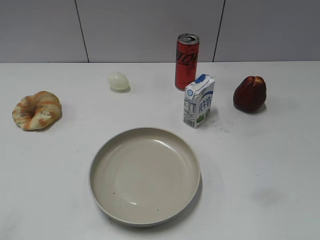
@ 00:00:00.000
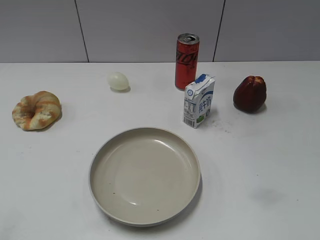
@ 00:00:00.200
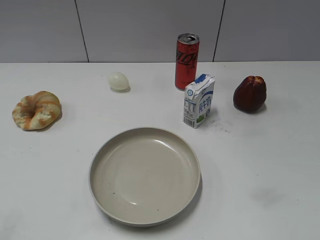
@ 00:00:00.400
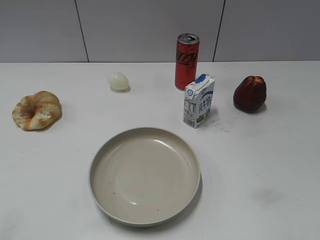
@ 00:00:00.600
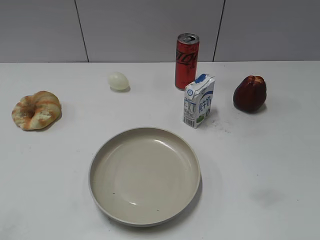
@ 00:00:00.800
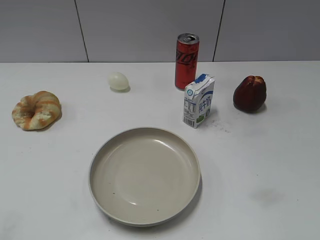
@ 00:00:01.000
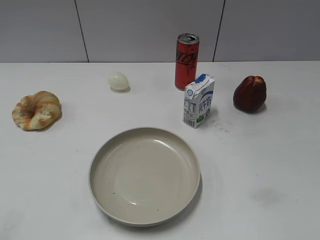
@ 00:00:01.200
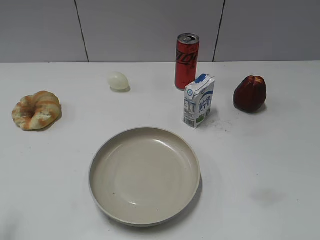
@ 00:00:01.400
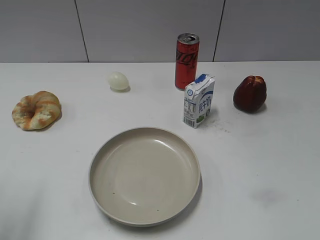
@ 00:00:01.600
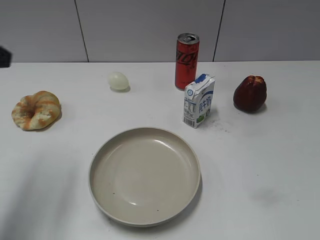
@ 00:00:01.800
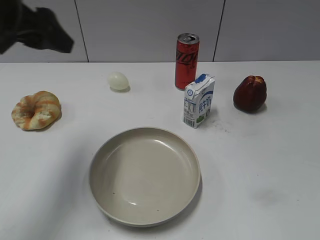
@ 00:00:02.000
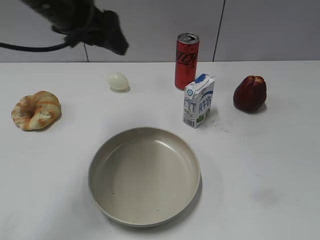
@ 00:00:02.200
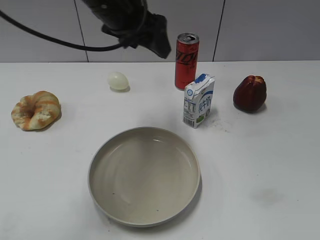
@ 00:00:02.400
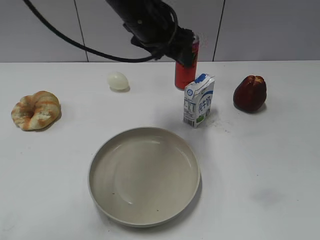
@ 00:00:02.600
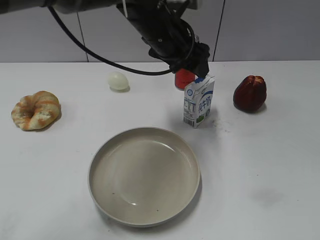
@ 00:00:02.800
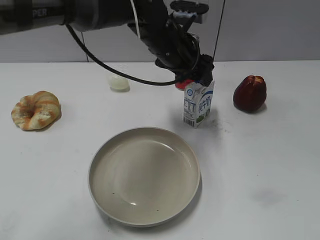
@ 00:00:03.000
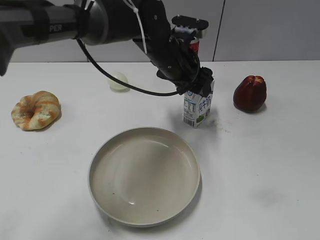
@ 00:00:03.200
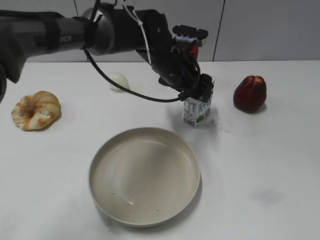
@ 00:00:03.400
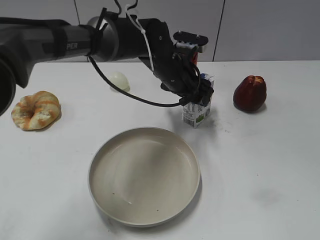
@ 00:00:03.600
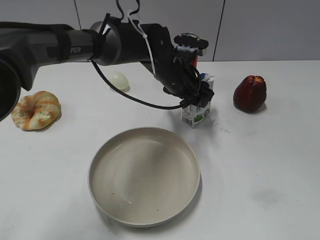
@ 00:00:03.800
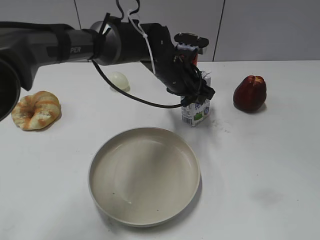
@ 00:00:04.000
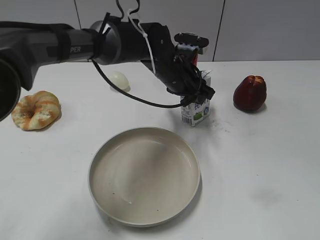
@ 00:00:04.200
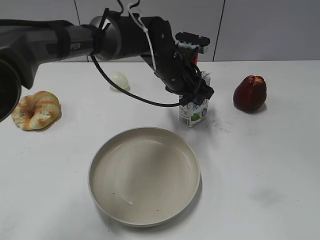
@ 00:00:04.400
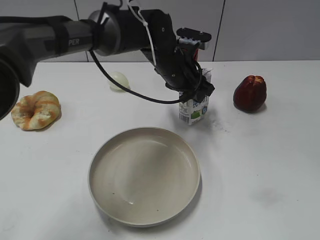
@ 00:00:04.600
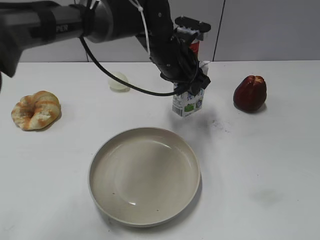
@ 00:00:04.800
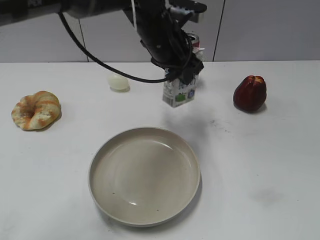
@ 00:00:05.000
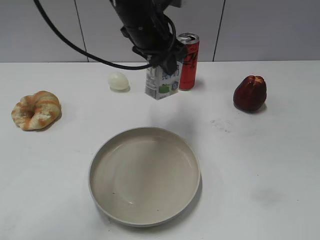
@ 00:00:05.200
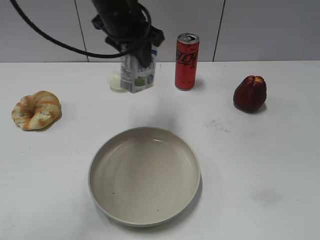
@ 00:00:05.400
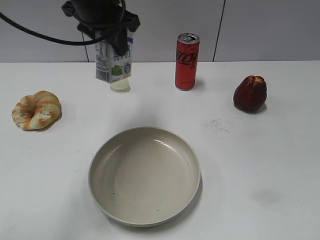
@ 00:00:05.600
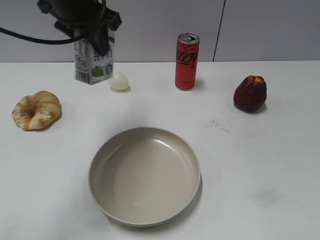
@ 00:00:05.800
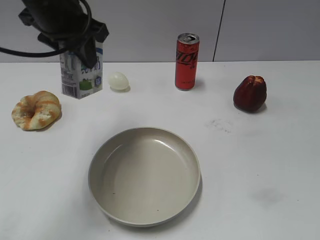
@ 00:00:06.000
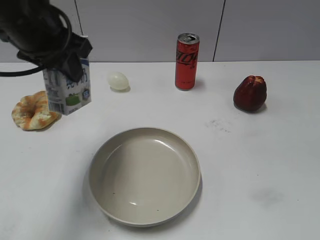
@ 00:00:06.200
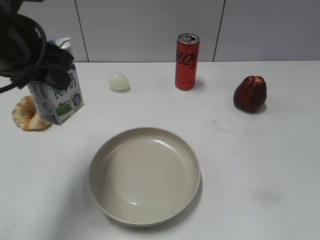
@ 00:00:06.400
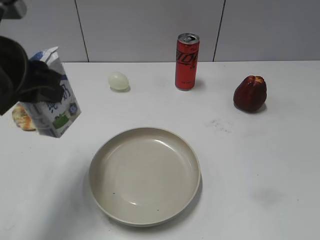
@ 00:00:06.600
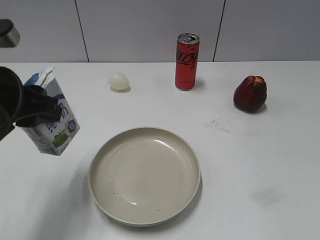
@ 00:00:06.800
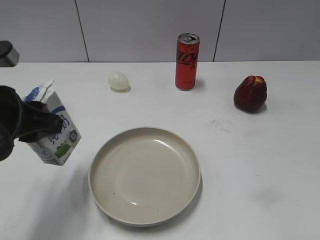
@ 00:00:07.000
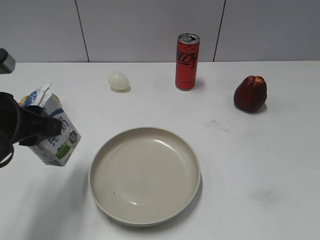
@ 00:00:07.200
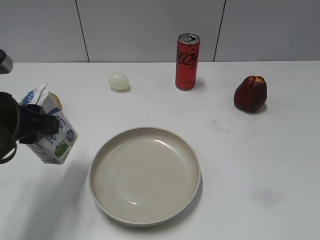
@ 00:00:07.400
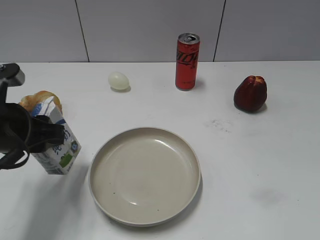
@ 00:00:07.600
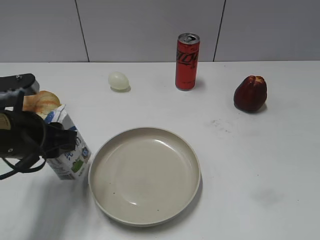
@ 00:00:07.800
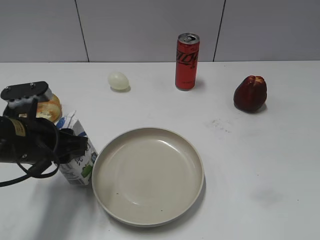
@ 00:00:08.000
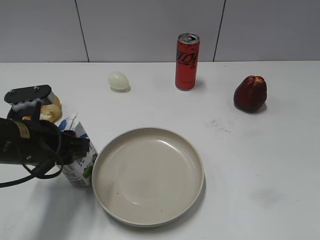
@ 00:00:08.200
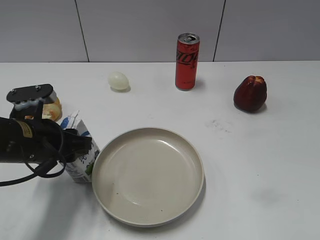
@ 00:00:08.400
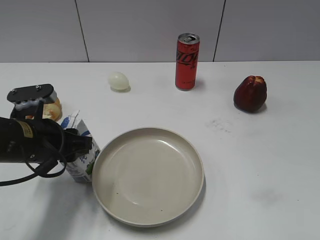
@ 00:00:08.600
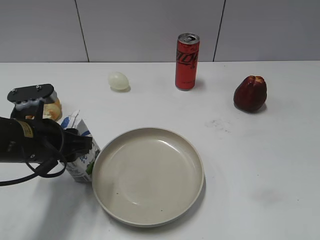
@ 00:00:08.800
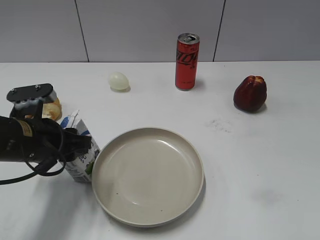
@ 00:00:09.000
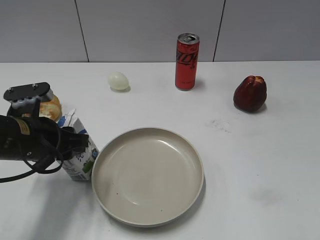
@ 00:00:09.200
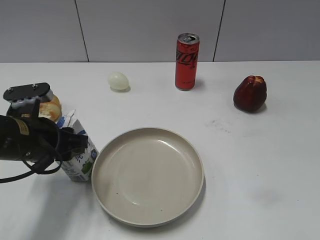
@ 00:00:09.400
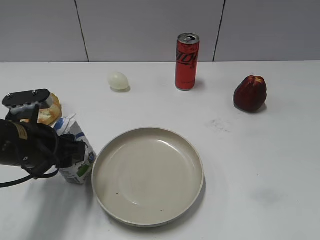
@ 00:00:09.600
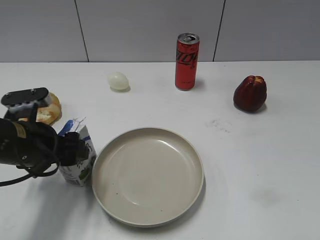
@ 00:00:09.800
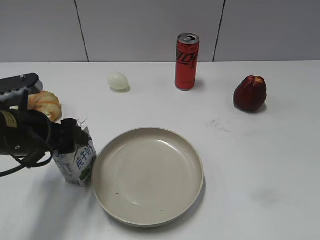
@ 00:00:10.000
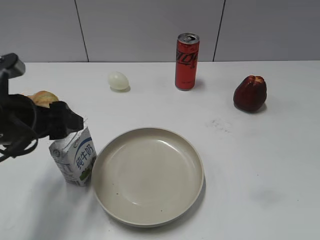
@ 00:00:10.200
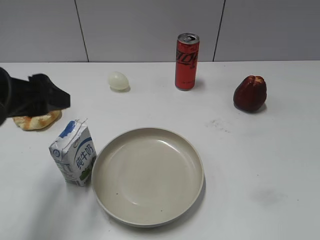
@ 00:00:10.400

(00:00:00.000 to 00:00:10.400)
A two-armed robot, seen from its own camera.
Step, 00:00:00.800 - 00:00:03.800: Grasp the milk with left gripper.
Step, 00:00:04.000 - 00:00:10.200: Place the milk on the table with left gripper.
00:00:01.400 - 00:00:03.000: The left gripper goes roughly 50 cm to the right and forward.
00:00:03.000 - 00:00:04.400: The left gripper is displaced downward by some 5 cm, and closes.
00:00:04.400 - 00:00:06.000: The left gripper goes about 25 cm to the left and upward.
00:00:06.000 - 00:00:07.400: The left gripper shifts approximately 20 cm backward, downward and to the left.
00:00:07.400 - 00:00:09.000: The left gripper is displaced downward by approximately 5 cm.
00:00:09.000 - 00:00:10.400: The left gripper travels upward by approximately 10 cm, and opens its fingers.

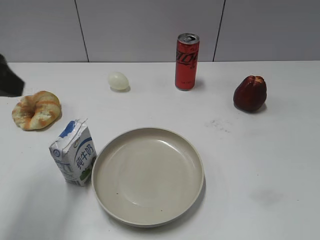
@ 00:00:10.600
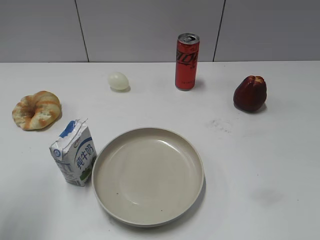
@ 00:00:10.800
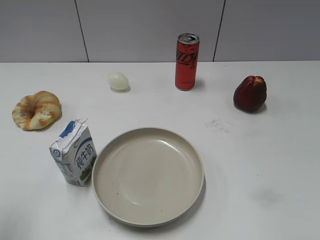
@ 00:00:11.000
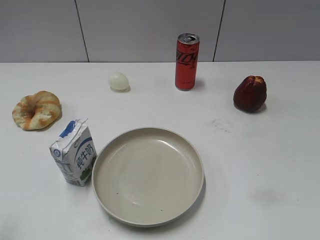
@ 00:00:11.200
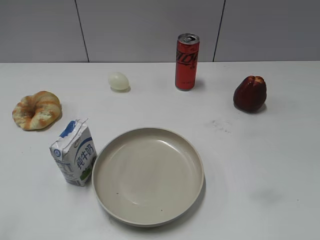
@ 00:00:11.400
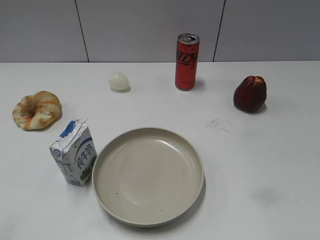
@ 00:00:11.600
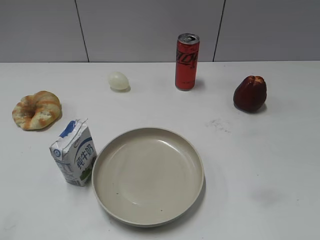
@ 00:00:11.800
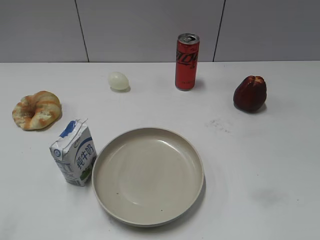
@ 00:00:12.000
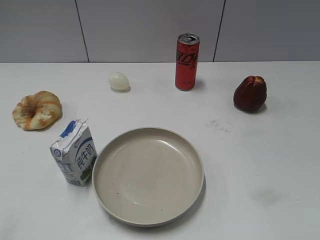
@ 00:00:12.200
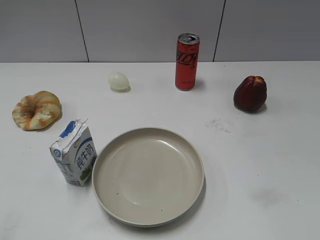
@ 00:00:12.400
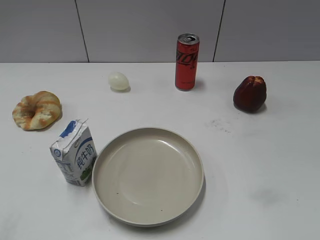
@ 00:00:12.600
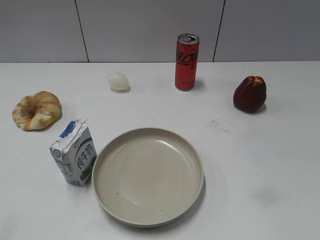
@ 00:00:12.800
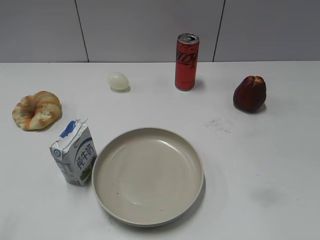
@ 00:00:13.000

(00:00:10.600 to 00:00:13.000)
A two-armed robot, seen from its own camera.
00:00:10.600 - 00:00:11.800: The left gripper goes roughly 20 cm backward and to the left.
